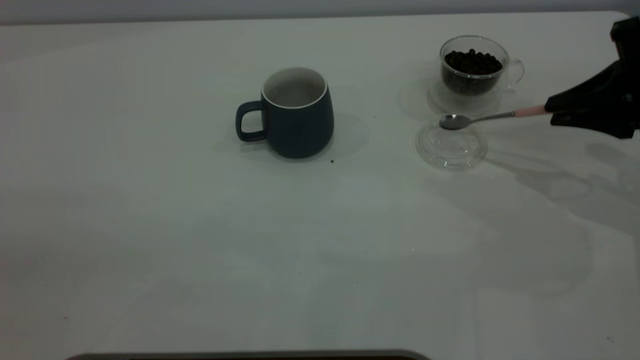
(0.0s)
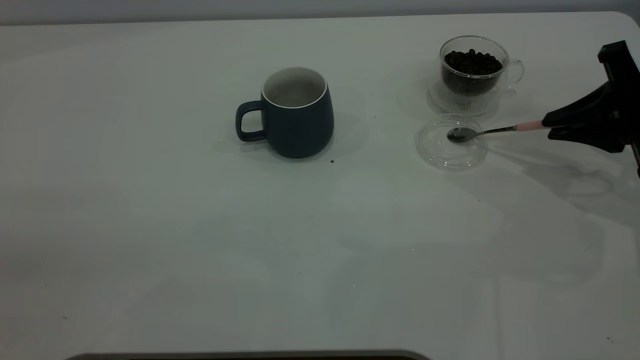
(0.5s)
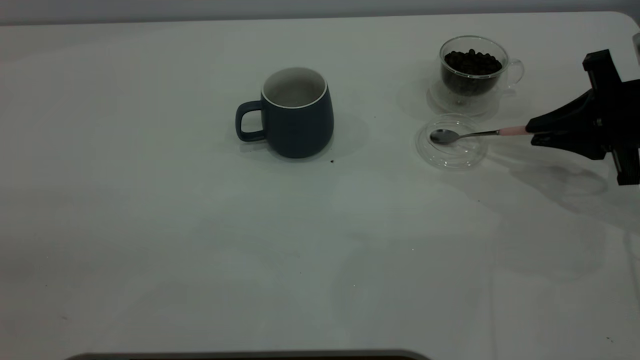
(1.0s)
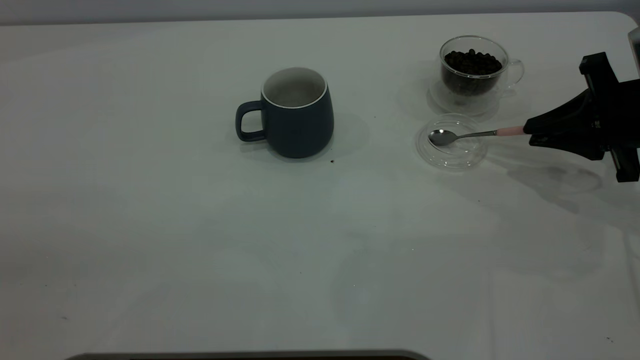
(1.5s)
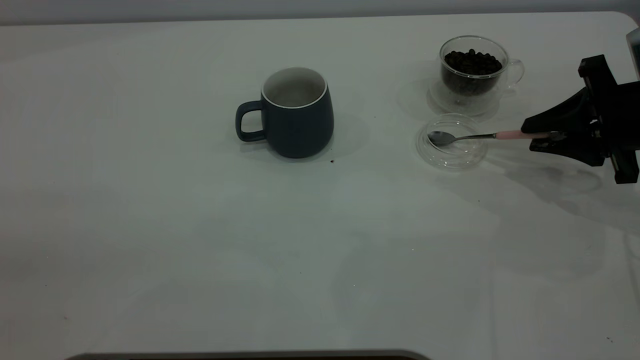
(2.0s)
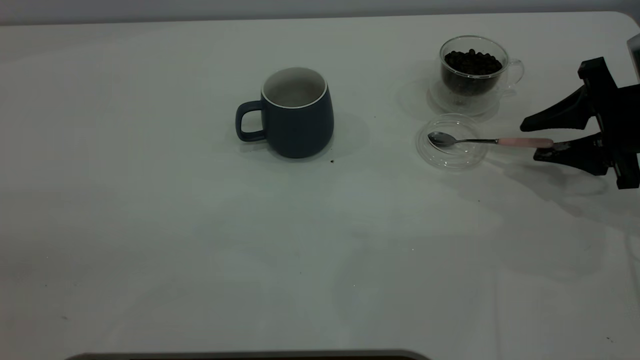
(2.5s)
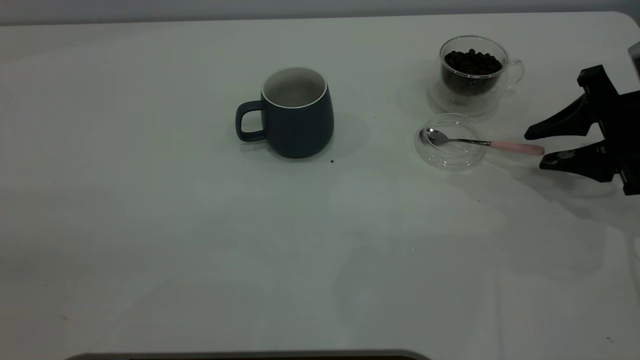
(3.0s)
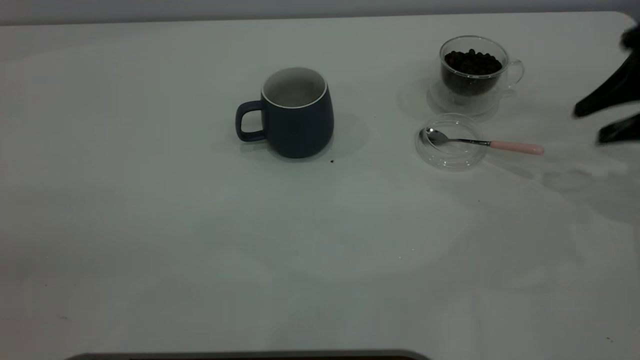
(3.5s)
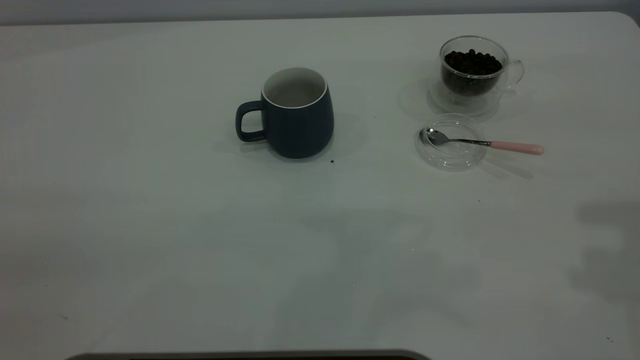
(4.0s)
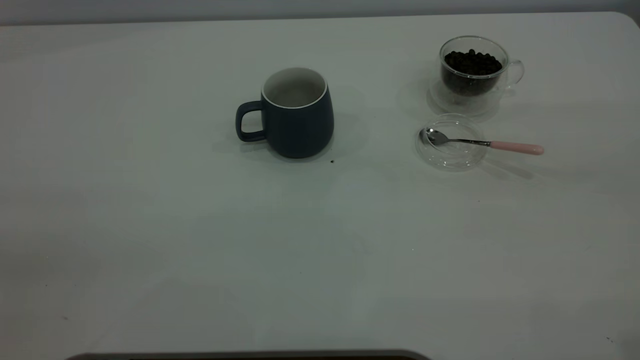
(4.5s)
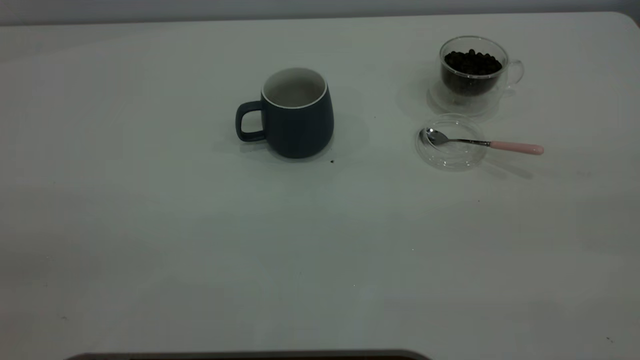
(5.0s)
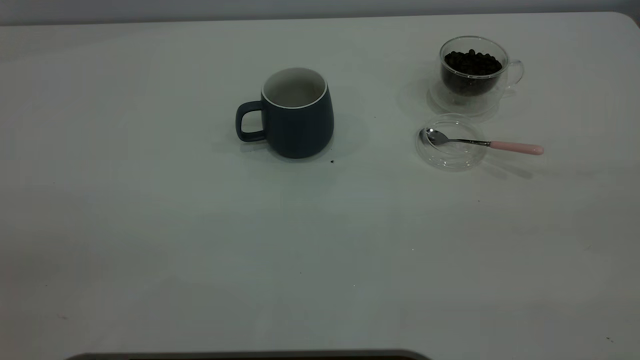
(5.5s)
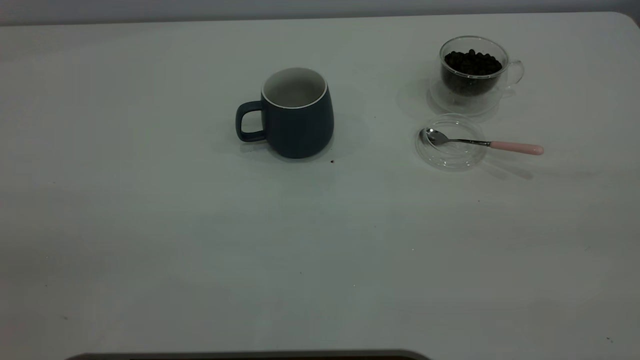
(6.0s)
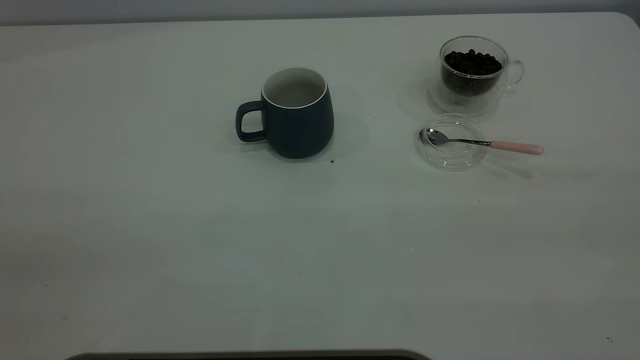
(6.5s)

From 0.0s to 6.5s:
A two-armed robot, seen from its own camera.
Task of the whole recording: the left gripper place the grey cup in the center of the table, the right gripper take the pink spoon from the cup lid and scoop out the coffee beans from the coffee cup and put them into the grey cup, the right gripper put the spoon back into the cup lid.
Step, from 0.0s to 3.0s: Place the spoon back in its original place.
From 0.0s to 2.0s: The right gripper opens its fingers.
From 2.0s to 4.5s: The right gripper is displaced upward and backward by about 35 cm, and opens its fingers.

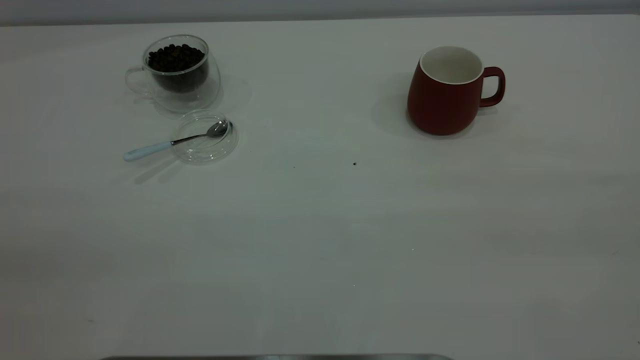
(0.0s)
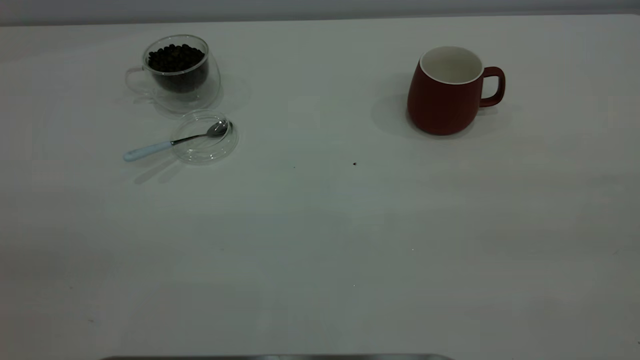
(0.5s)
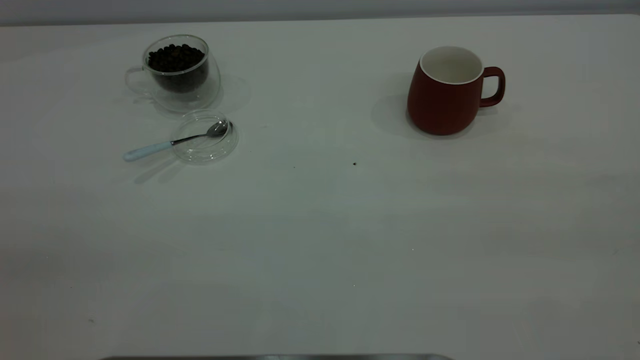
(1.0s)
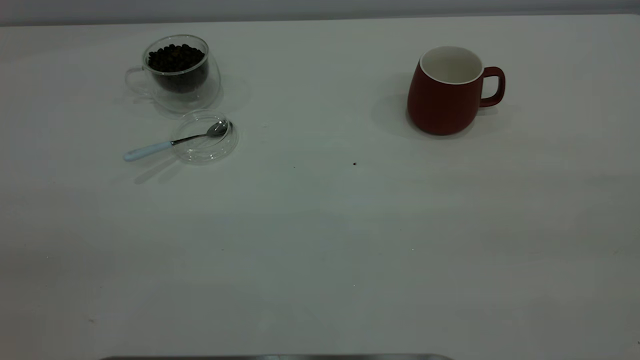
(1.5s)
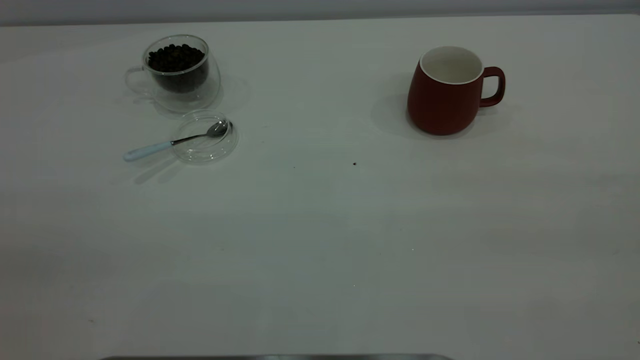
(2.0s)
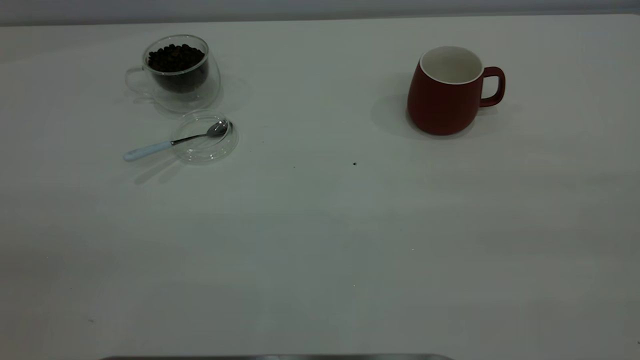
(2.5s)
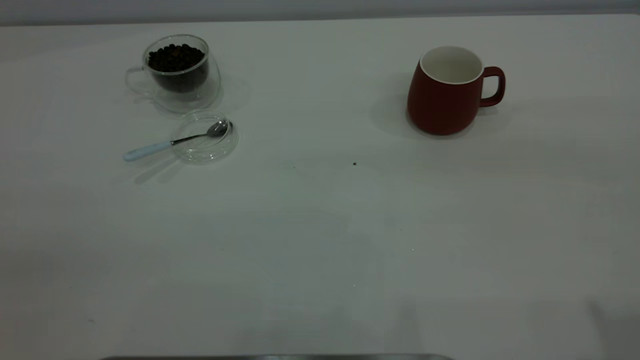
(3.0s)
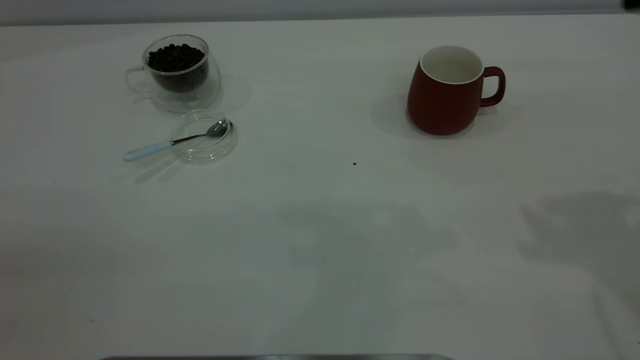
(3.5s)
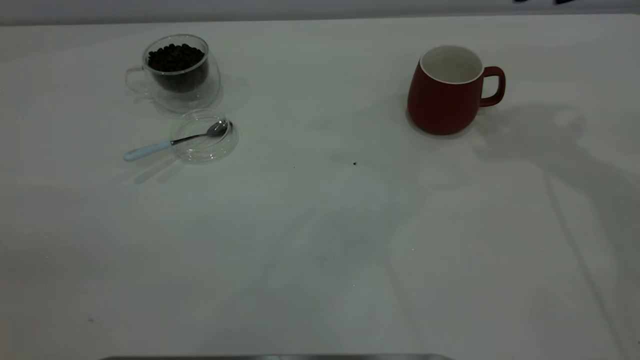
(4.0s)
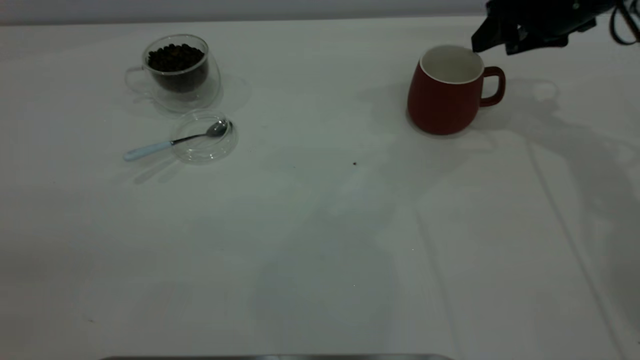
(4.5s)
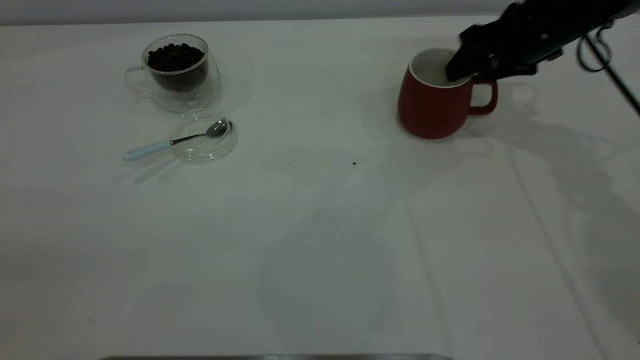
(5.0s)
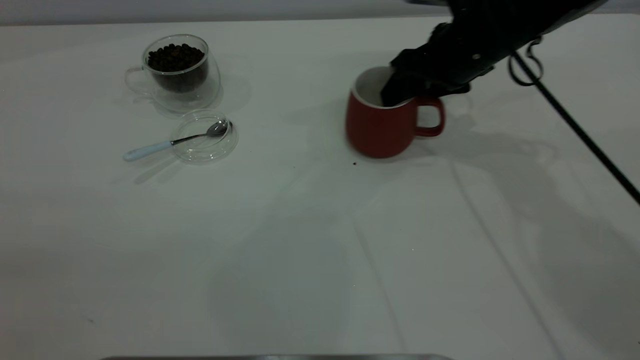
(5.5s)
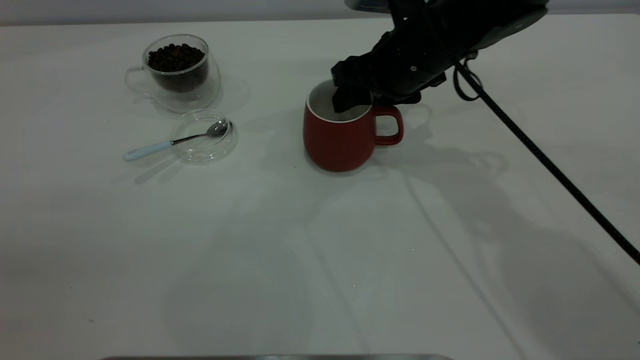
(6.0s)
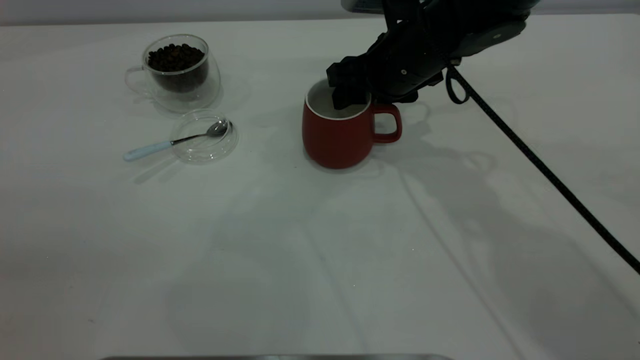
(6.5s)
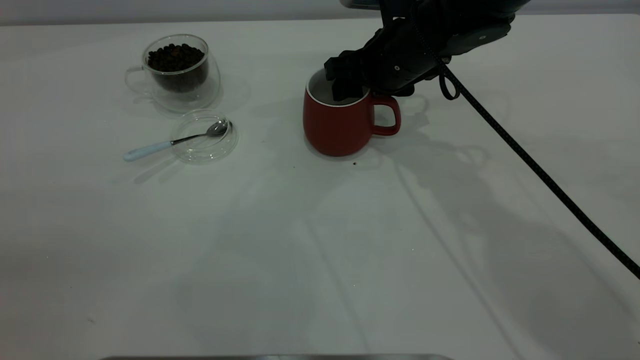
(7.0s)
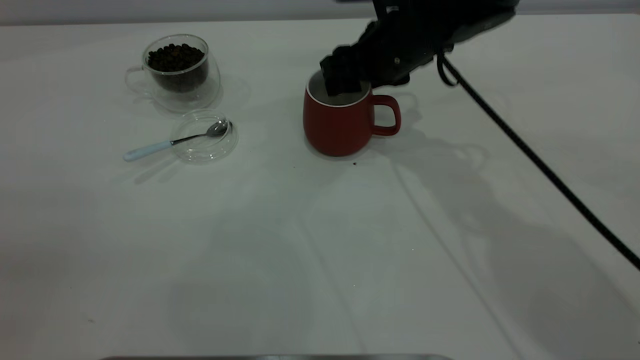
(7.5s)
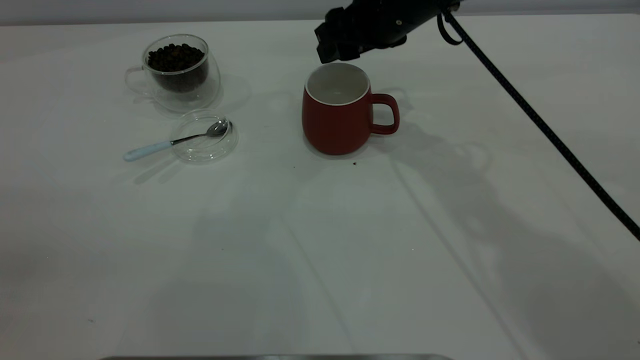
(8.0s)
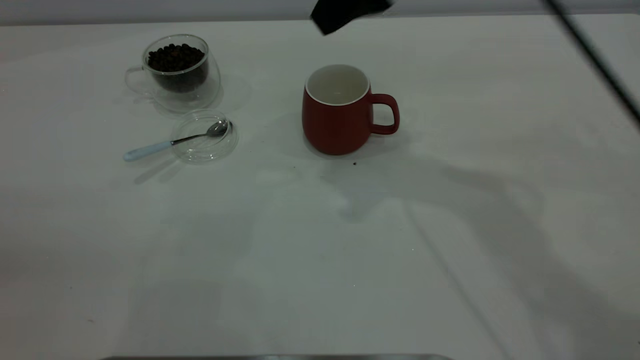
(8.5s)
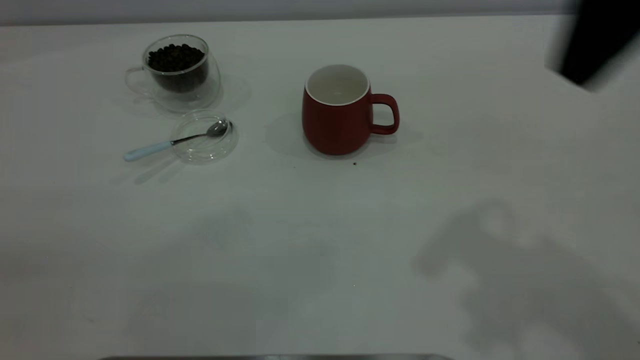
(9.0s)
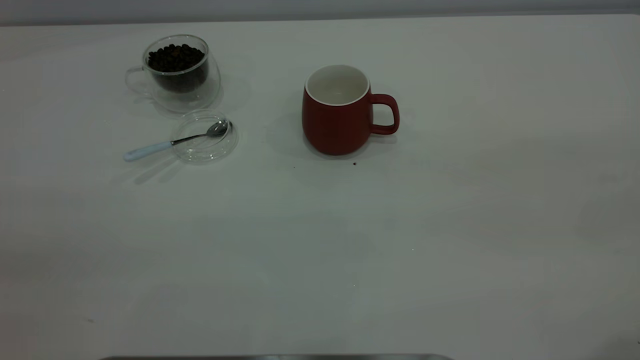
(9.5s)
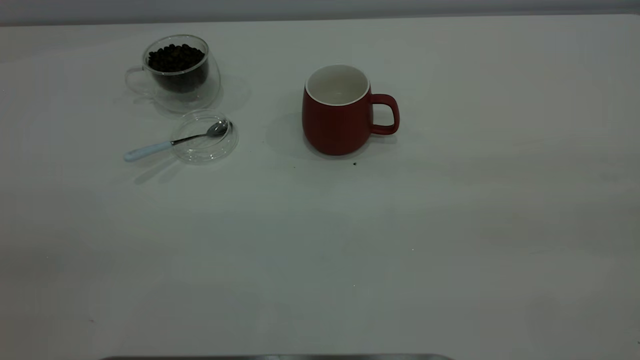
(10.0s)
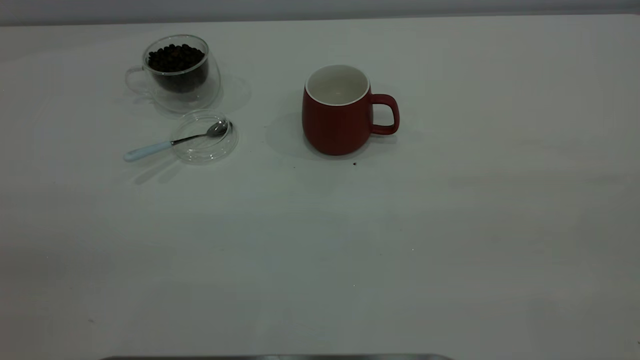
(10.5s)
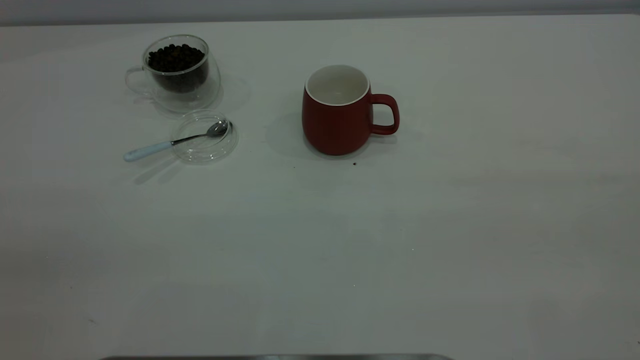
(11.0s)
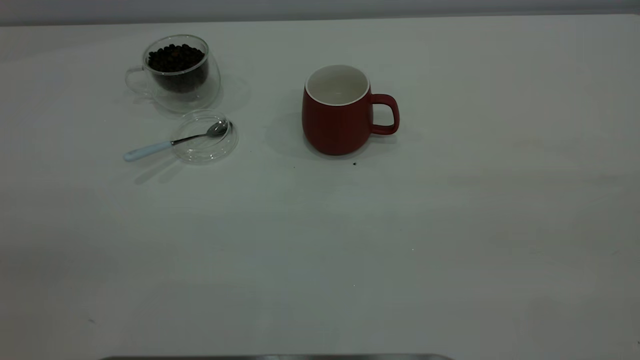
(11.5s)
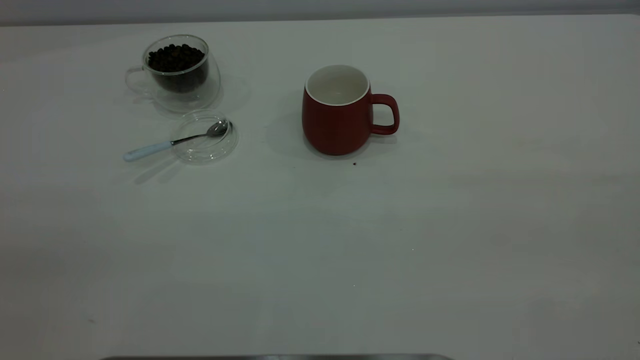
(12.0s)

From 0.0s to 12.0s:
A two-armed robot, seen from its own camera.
Task of the whole recording: the right gripper place the red cup in the center of the table, the left gripper take the blue spoon from the cup lid and scoop out the coffee beans from the coffee cup and put them into the red cup, the left gripper put the spoon back into the cup lid.
Step, from 0.0s to 8.0s: Move the cup to the center of view.
From 0.0s to 2.0s: Both grippers stay put.
From 4.0s to 6.0s: The right gripper is displaced to the left and downward by about 20 cm.
From 6.0s to 8.0s: The right gripper changes place by some 5 cm.
From 8.0s to 10.0s: The right gripper heads backward, to the right and upward, covering roughly 50 cm.

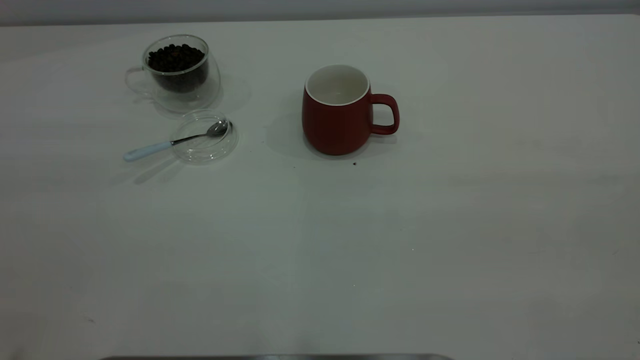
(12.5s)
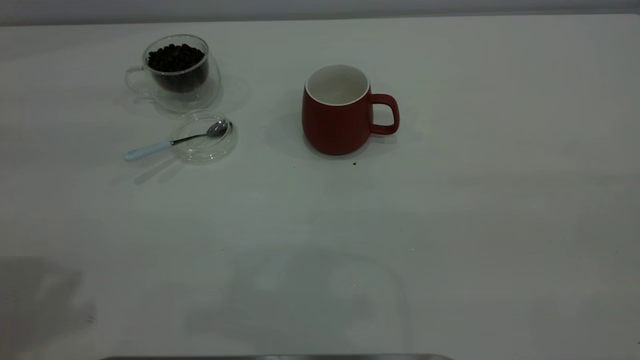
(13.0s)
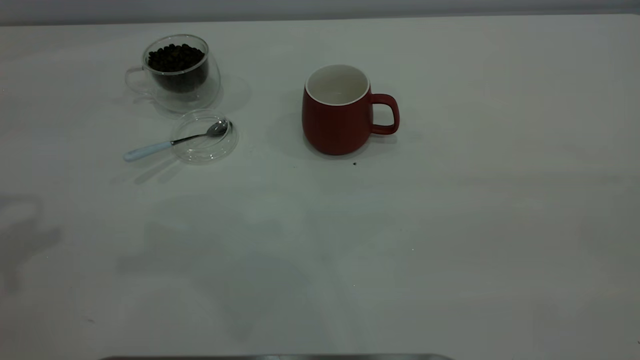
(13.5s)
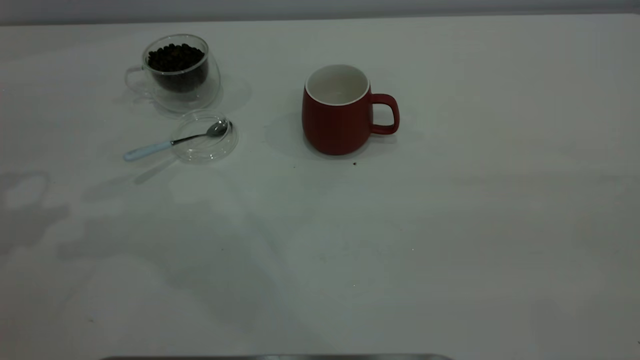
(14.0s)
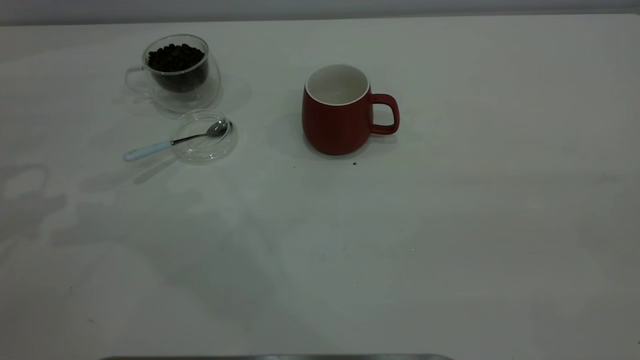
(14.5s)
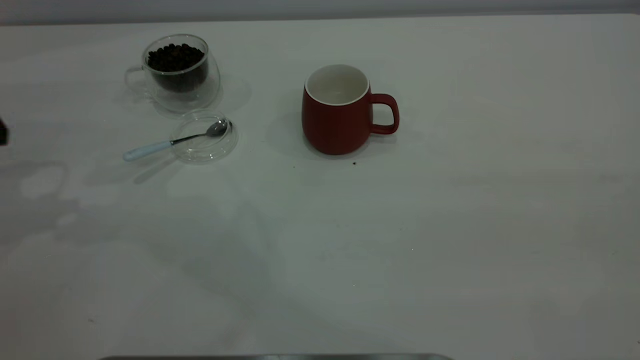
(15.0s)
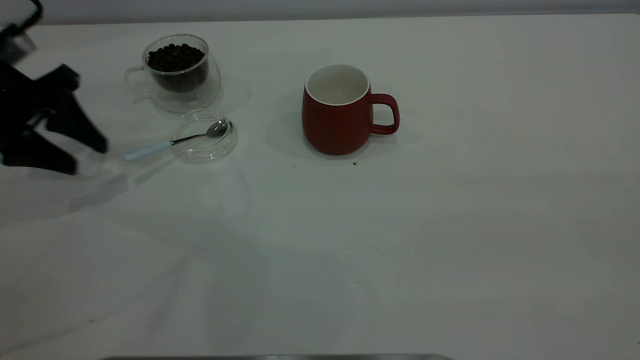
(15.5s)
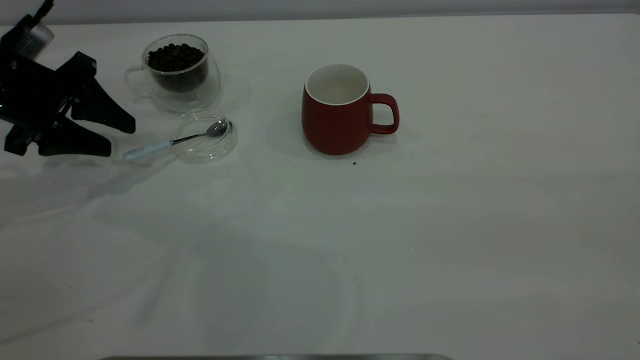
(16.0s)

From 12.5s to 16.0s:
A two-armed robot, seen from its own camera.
Task of the whole recording: the right gripper place the red cup in the center of the table, the left gripper take the blue spoon from the cup lid and scoop out the coffee beans from the coffee cup and put them into the red cup, the left gripper put the spoon back into the cup lid.
From 14.5s to 16.0s: The left gripper moves downward and forward, roughly 10 cm.
